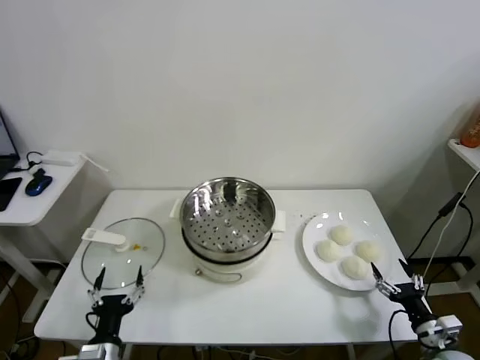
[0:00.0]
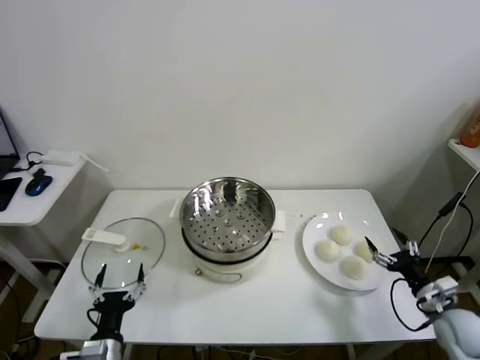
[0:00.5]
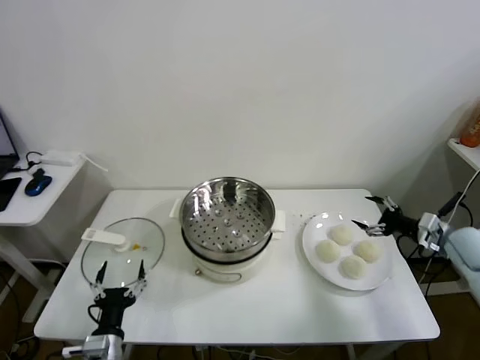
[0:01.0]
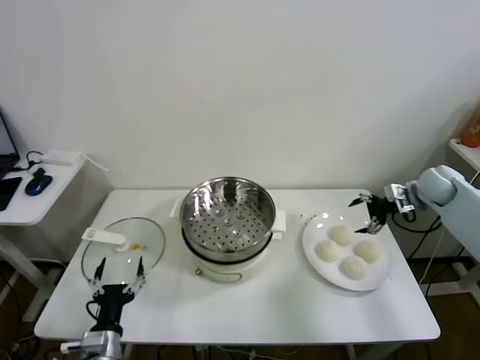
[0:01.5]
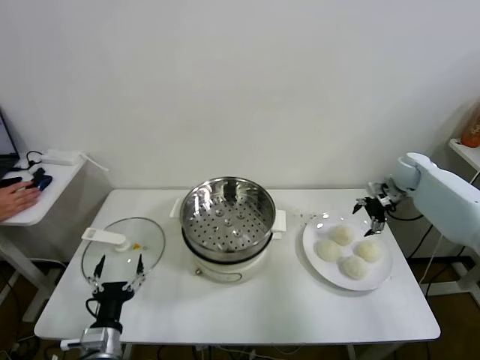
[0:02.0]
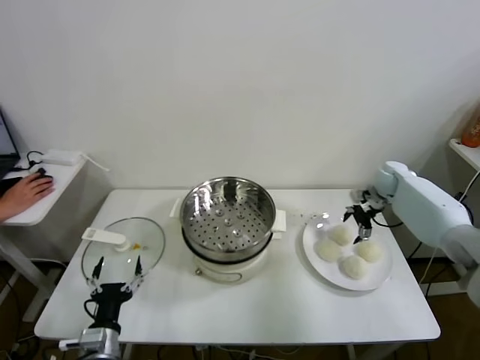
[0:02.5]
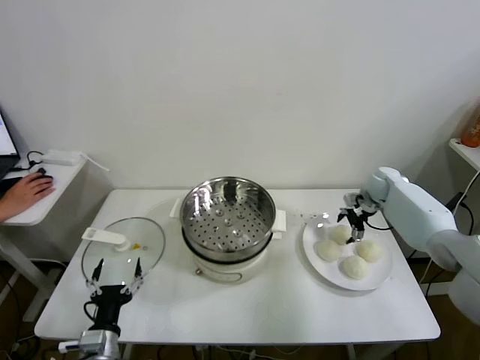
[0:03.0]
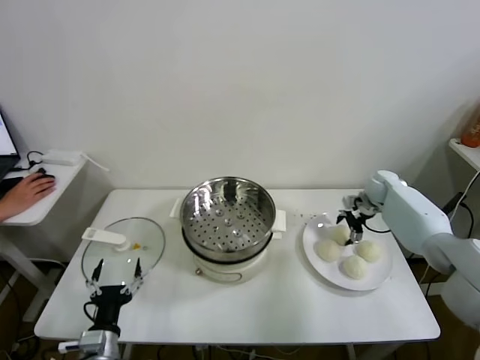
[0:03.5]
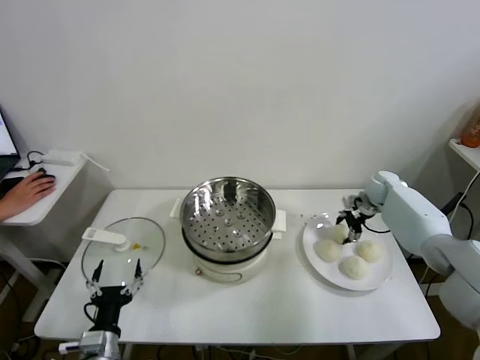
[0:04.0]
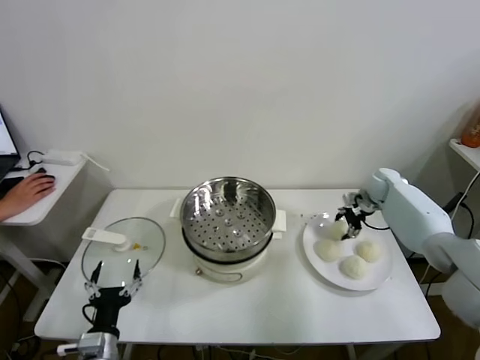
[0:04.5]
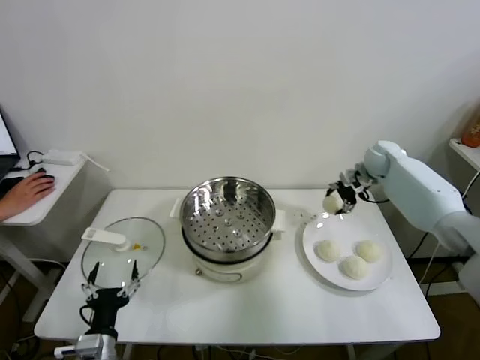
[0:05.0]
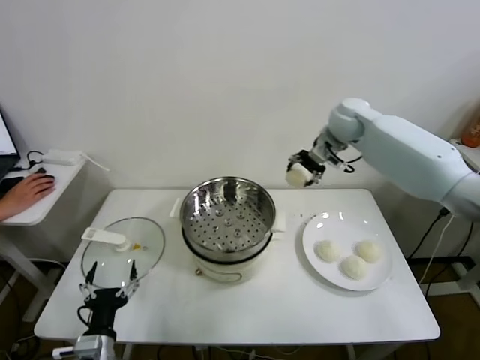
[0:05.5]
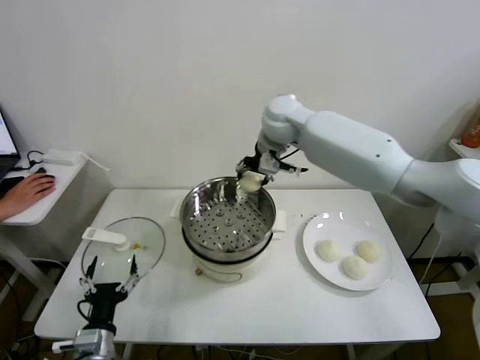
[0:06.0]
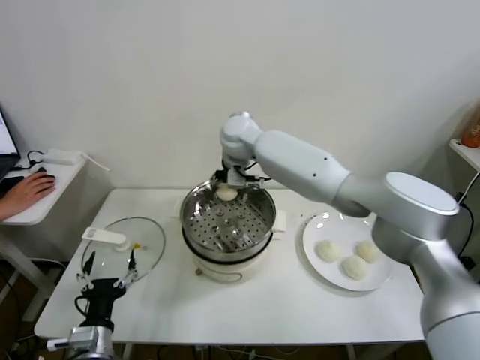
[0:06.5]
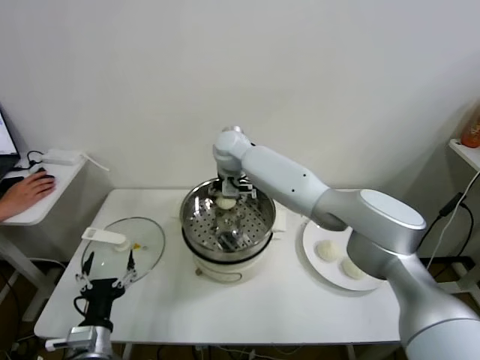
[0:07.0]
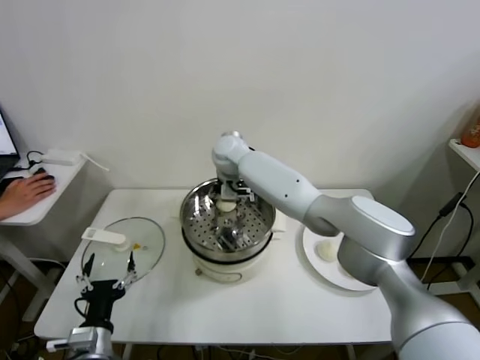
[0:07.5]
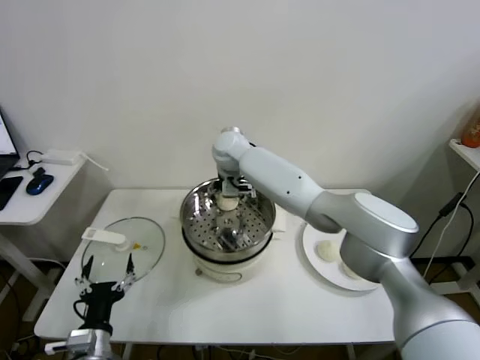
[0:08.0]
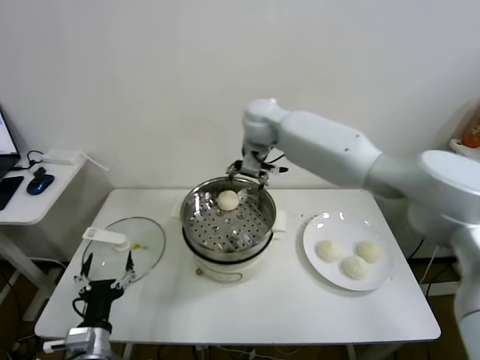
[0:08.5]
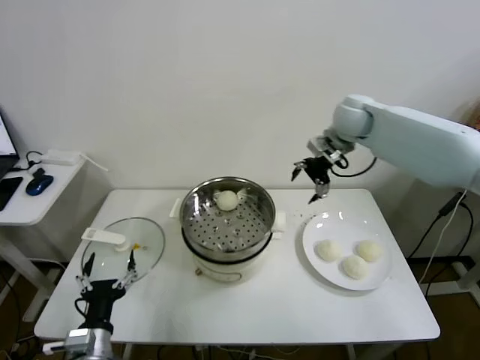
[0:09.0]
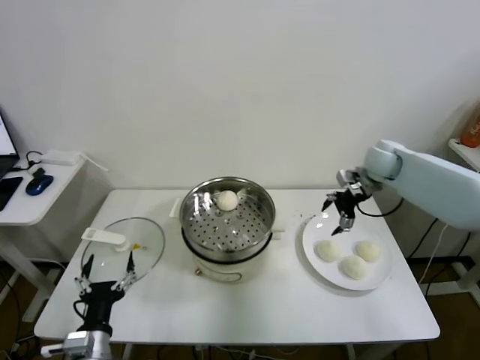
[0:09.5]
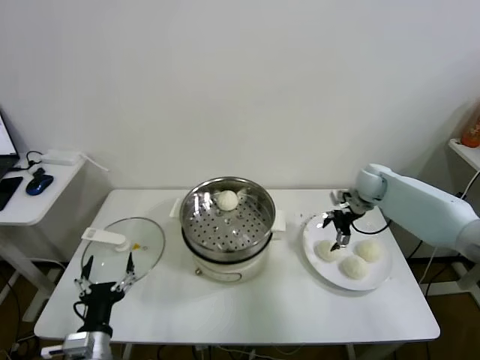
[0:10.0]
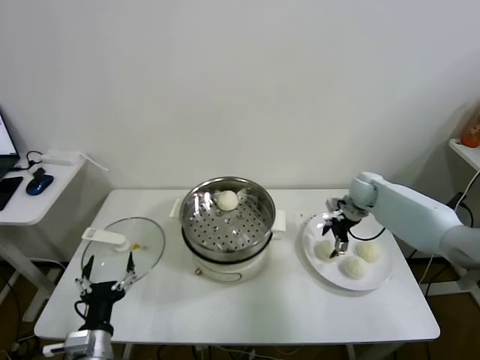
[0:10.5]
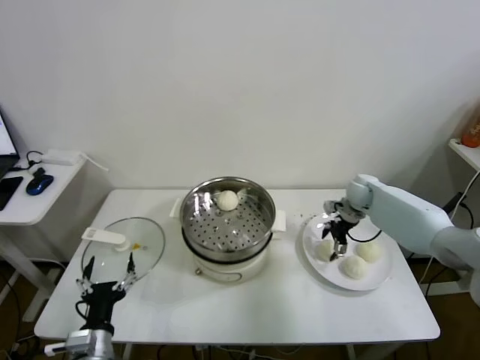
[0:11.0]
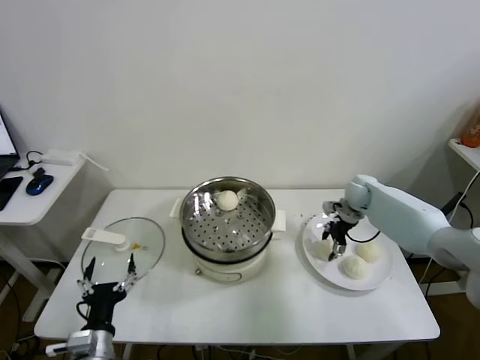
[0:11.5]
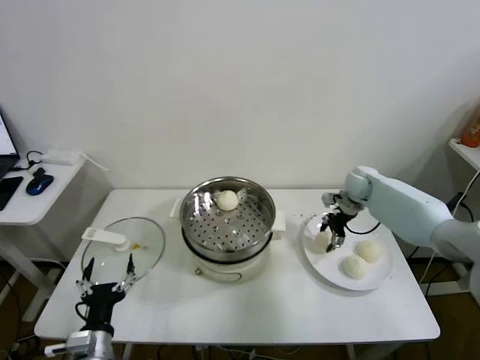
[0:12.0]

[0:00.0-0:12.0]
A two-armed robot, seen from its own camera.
Task of the whole recording: take steamed baozi put them in steamer.
Step, 0:00.0 to 0:04.0: Grasp the baozi in the plate with right gripper.
Step, 0:04.5 to 0:08.0: Place the baozi on the steamer with right gripper.
Step, 0:08.5 to 0:11.5: Grasp the baozi in the plate with right gripper.
0:02.0 to 0:04.0: The right gripper moves downward, about 5 cm, and closes.
0:04.0 to 0:06.0: The right gripper shifts about 40 cm to the left and upward.
0:06.0 to 0:08.0: The right gripper shifts roughly 10 cm to the left and downward, and opens its fingers.
0:08.0 to 0:10.0: The right gripper is displaced to the right by approximately 40 cm.
0:10.0 to 0:12.0: The right gripper closes its fingers.

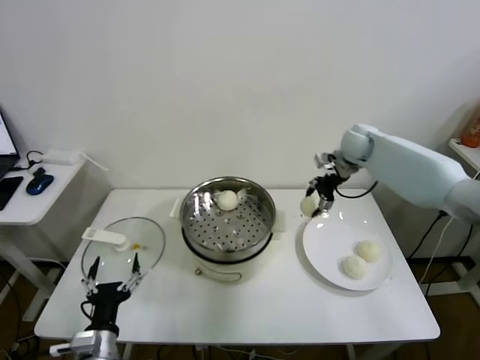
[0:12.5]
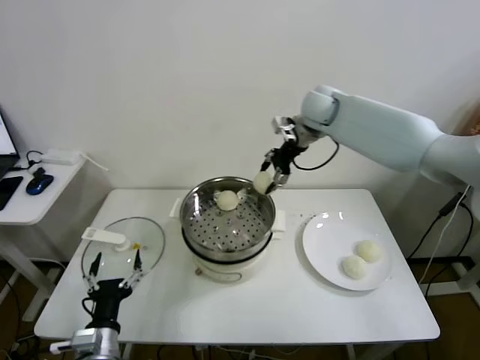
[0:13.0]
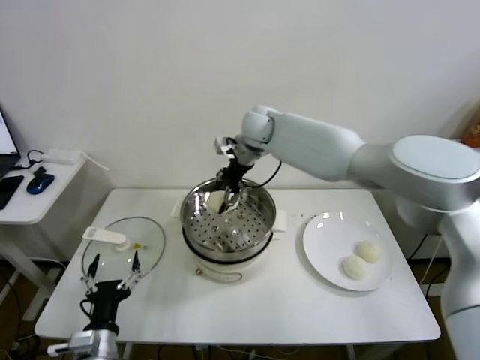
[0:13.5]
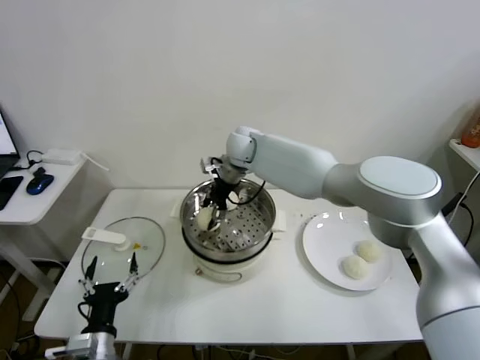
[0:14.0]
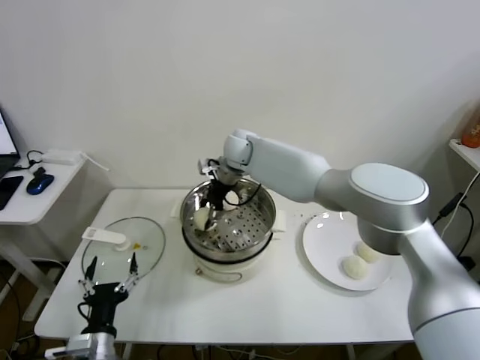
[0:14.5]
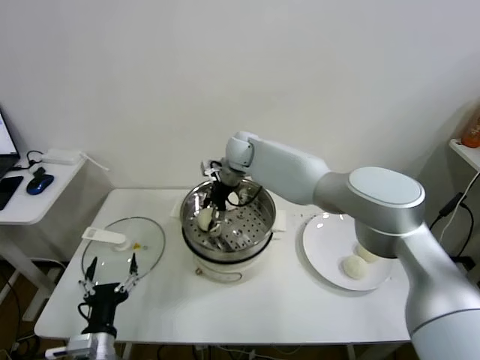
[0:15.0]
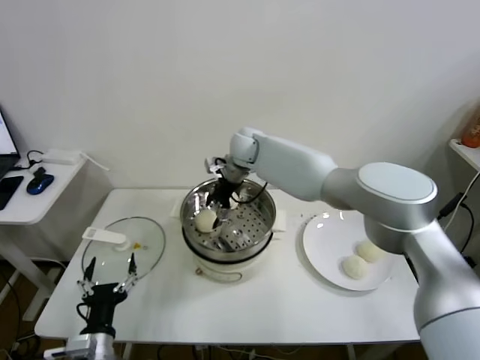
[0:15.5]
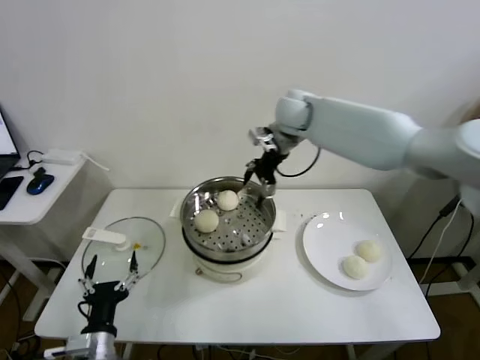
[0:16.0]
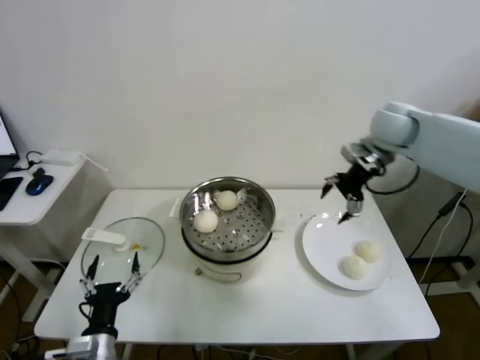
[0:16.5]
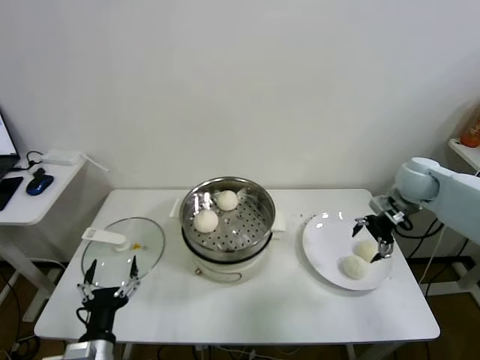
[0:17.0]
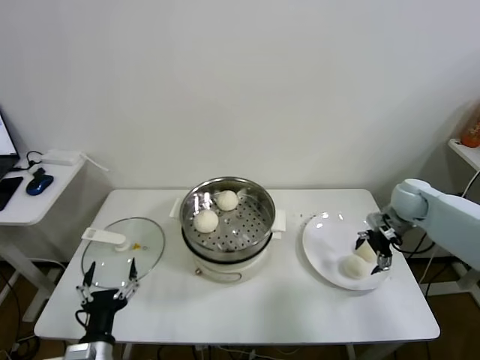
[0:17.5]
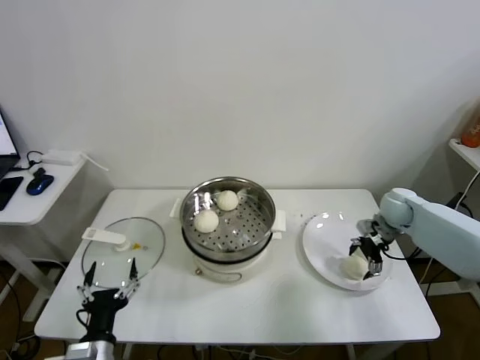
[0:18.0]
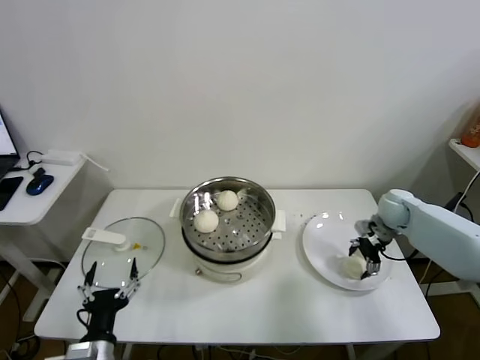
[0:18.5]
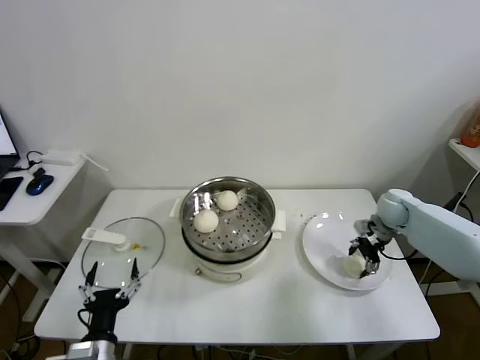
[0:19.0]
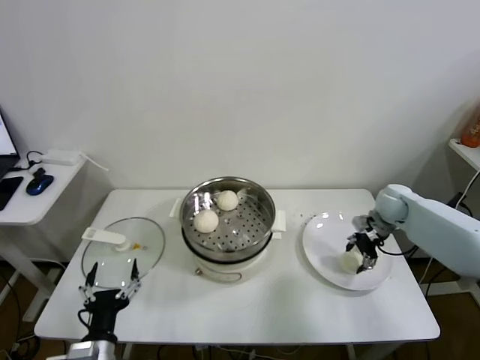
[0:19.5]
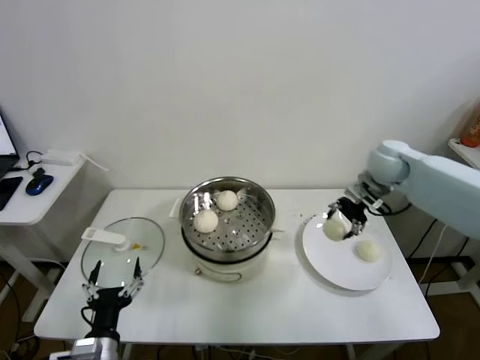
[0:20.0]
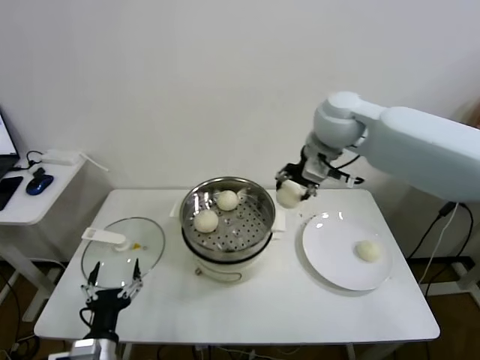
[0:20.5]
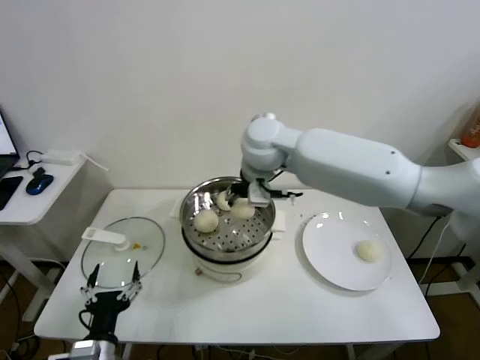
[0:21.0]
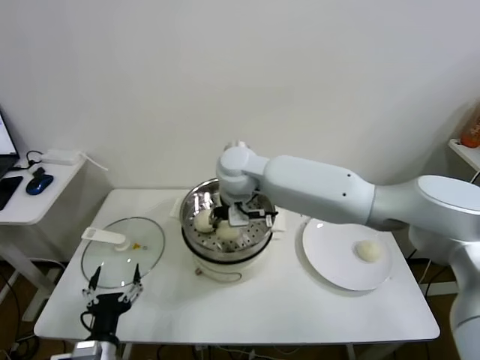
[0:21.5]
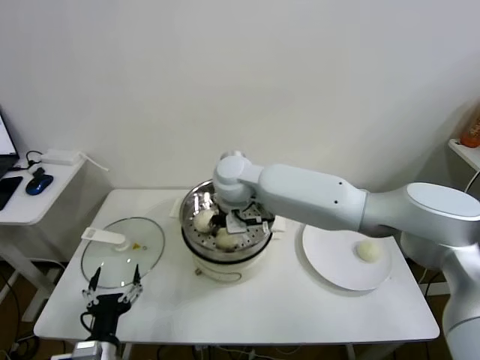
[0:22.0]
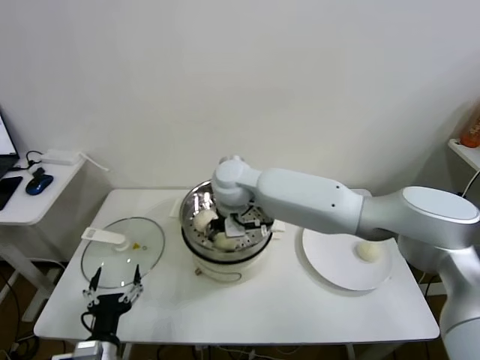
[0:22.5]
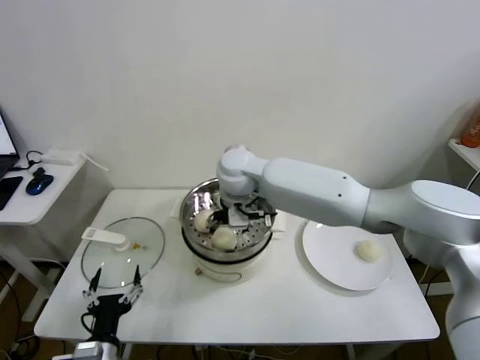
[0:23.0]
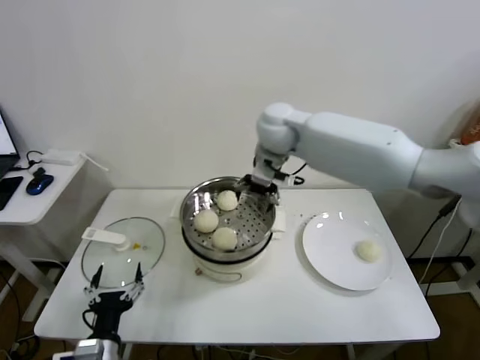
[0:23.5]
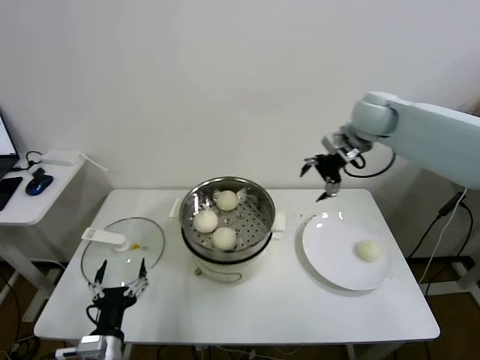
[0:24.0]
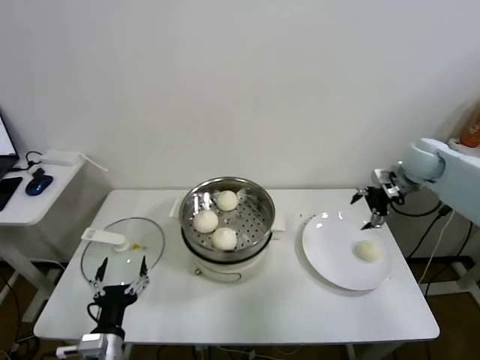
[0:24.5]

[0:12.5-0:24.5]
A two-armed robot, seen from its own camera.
Task of the whole recording: take steamed baozi put them in steamer.
Step, 0:12.5 to 0:15.5: Place the baozi on the steamer with right gripper.
Step, 0:16.0 to 0:18.5: Grasp the baozi in the plate with right gripper.
Step, 0:19.0 to 0:22.5: Place the baozi on the steamer with right gripper.
0:12.5 to 0:14.5: The right gripper moves to the left, about 30 cm.
0:14.5 to 0:16.5: The right gripper shifts some 35 cm to the right, and opens up.
0:16.5 to 0:18.5: The right gripper moves downward, approximately 25 cm.
0:18.5 to 0:20.5: The right gripper goes approximately 35 cm upward and to the left, and closes its fingers.
0:20.5 to 0:22.5: The right gripper goes some 25 cm to the left and downward, and opens up.
0:22.5 to 0:24.5: The right gripper is displaced to the right by some 40 cm, and opens.

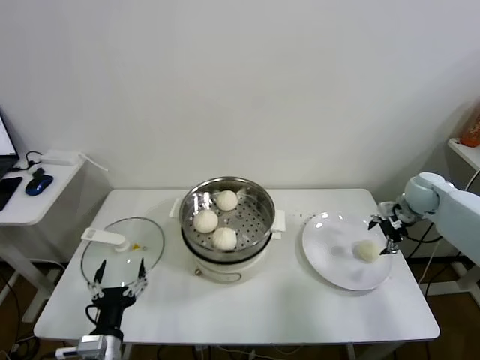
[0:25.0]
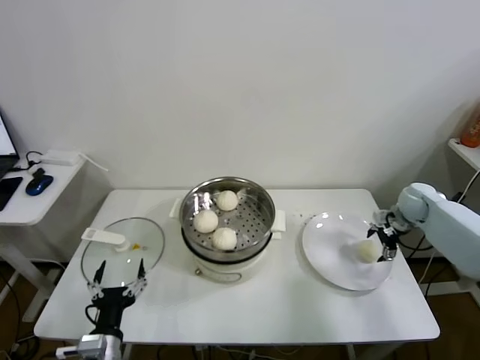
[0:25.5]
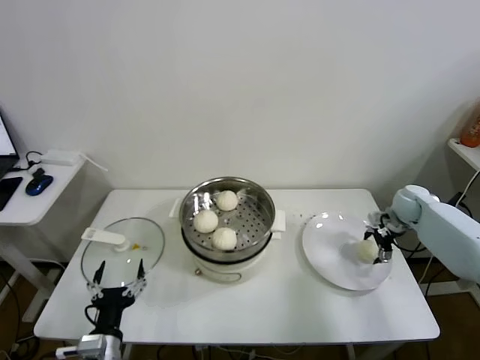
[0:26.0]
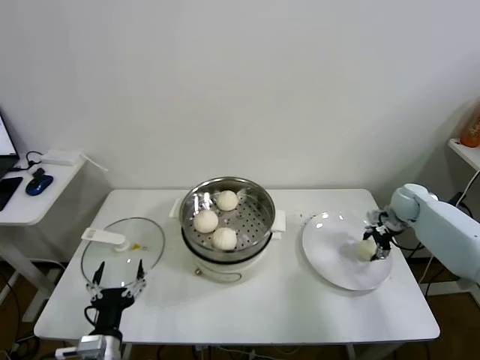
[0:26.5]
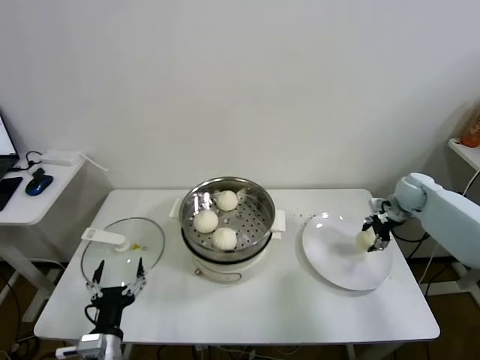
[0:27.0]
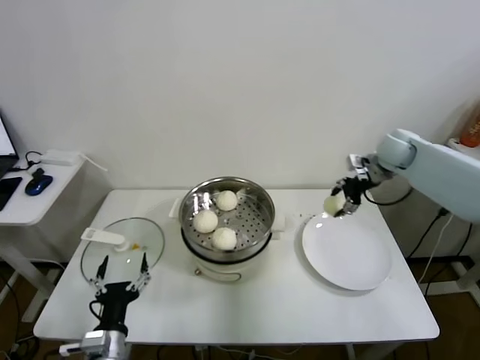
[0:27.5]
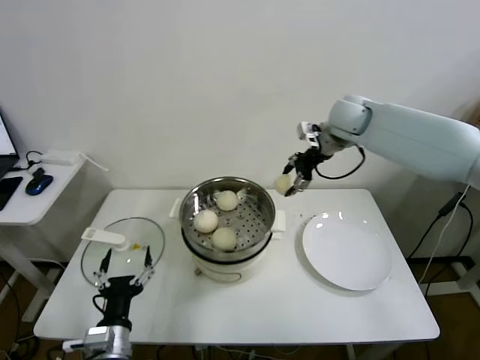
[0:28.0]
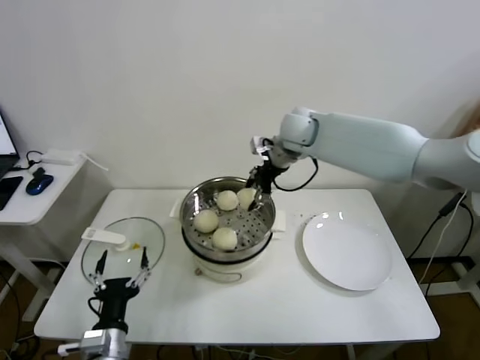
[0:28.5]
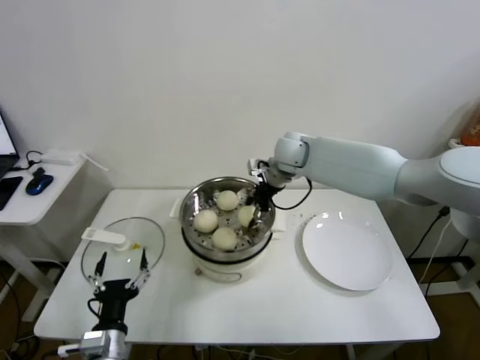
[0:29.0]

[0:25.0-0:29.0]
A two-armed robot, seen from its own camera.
Task of the whole recording: take steamed baozi put them in steamer.
0:25.0 to 0:27.0: The right gripper closes.
0:27.0 to 0:29.0: The right gripper goes roughly 35 cm to the left.
